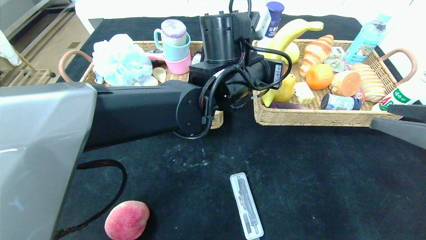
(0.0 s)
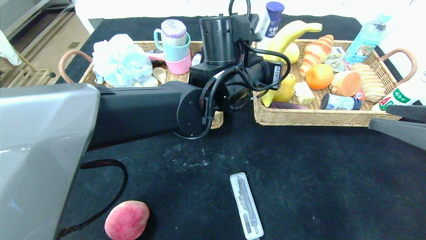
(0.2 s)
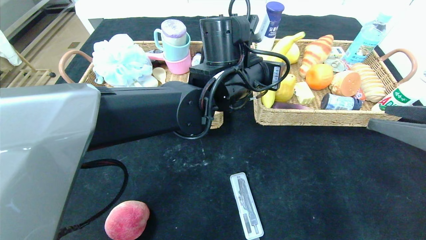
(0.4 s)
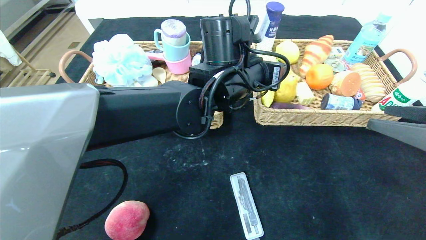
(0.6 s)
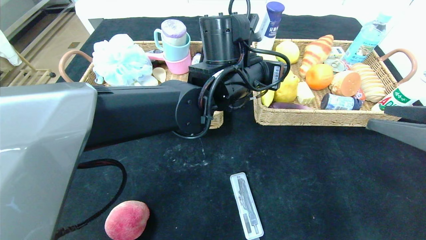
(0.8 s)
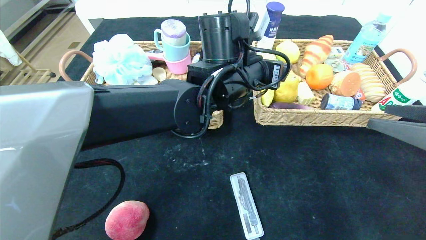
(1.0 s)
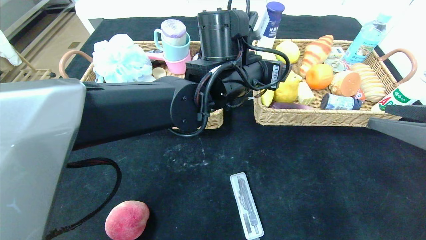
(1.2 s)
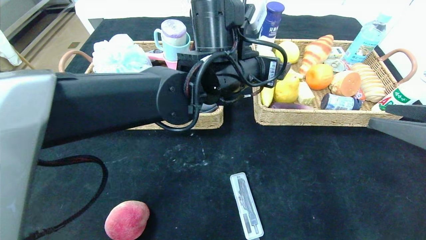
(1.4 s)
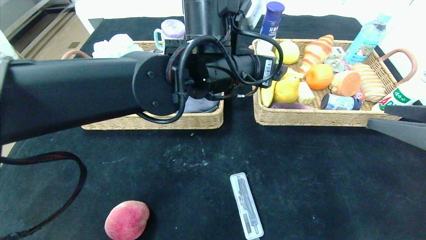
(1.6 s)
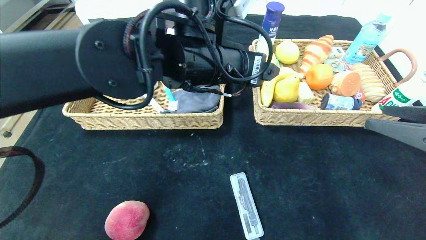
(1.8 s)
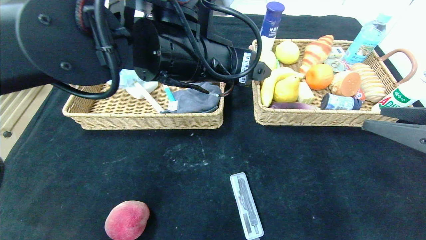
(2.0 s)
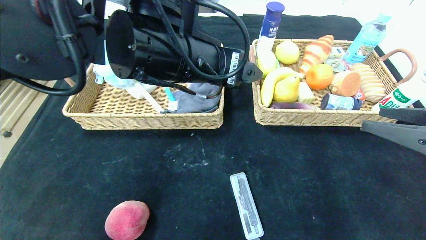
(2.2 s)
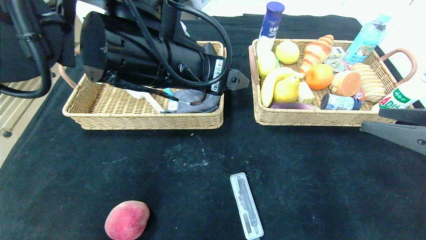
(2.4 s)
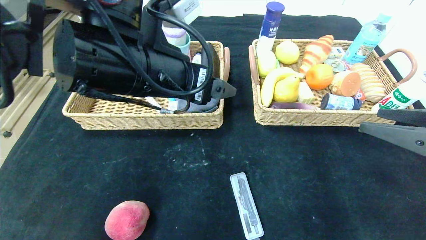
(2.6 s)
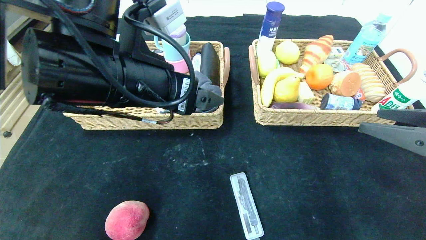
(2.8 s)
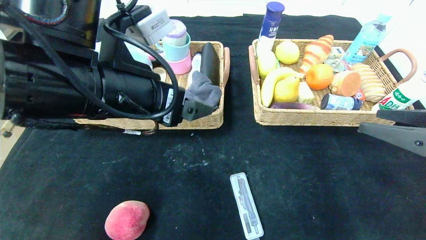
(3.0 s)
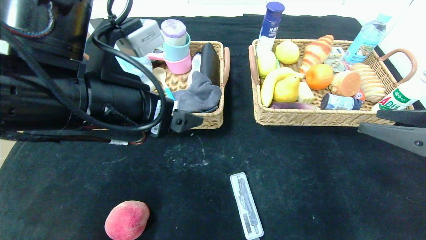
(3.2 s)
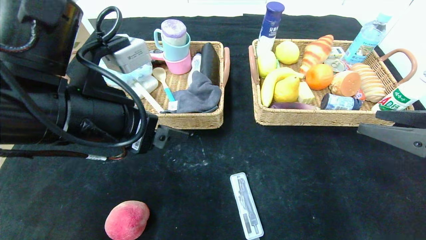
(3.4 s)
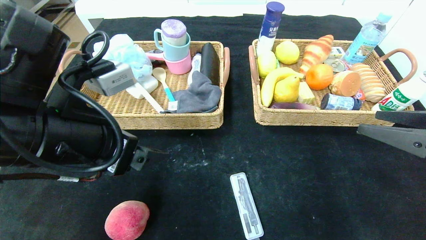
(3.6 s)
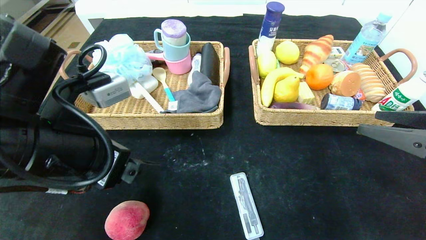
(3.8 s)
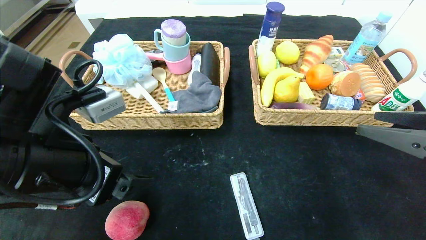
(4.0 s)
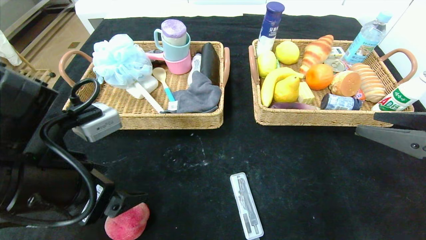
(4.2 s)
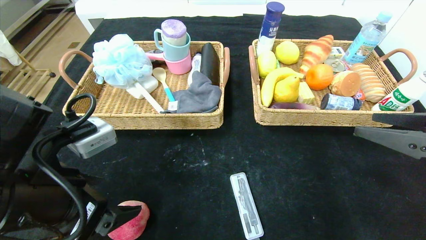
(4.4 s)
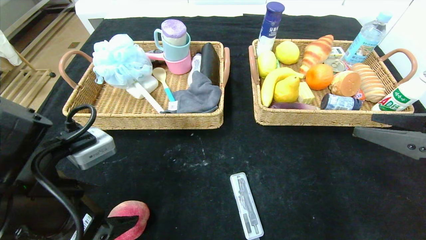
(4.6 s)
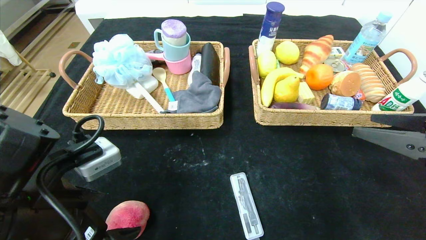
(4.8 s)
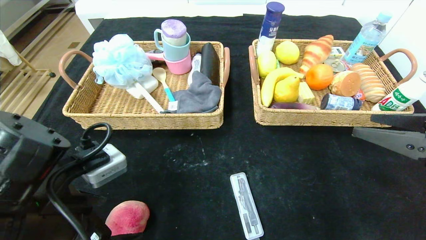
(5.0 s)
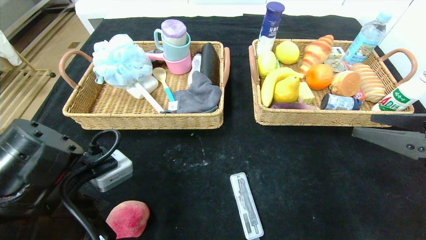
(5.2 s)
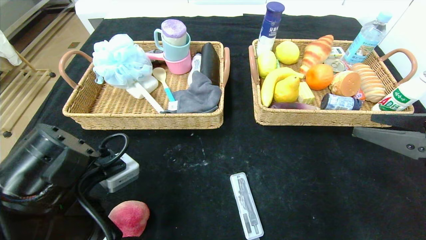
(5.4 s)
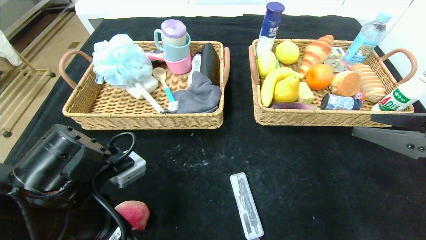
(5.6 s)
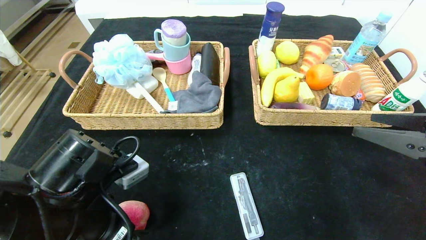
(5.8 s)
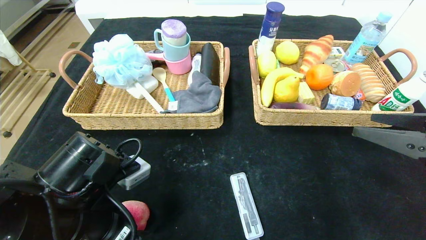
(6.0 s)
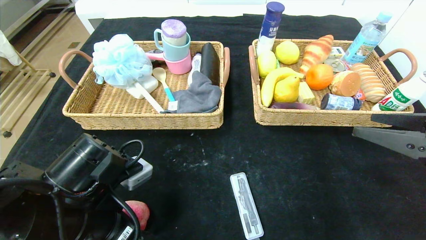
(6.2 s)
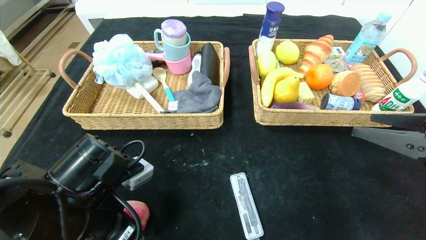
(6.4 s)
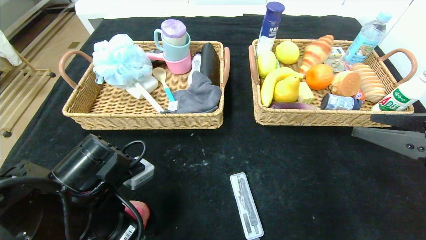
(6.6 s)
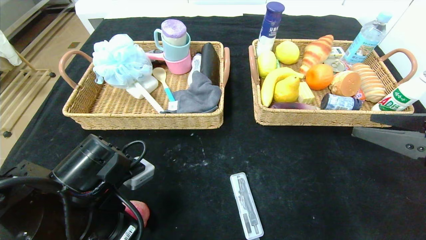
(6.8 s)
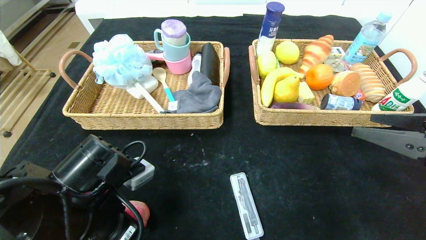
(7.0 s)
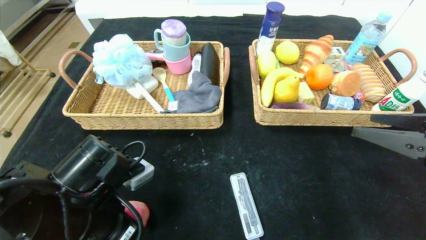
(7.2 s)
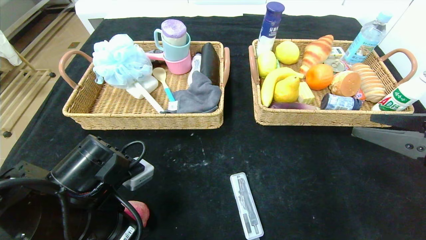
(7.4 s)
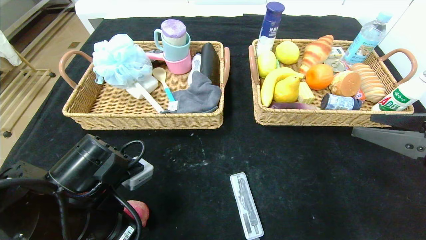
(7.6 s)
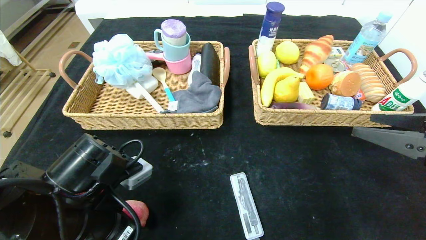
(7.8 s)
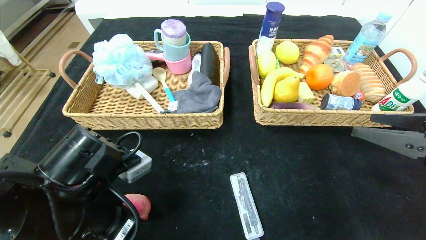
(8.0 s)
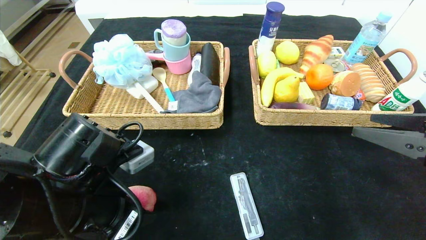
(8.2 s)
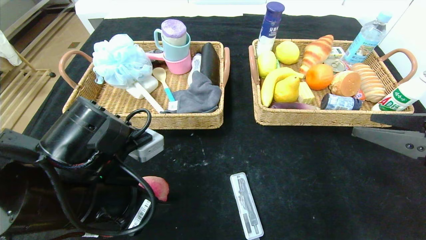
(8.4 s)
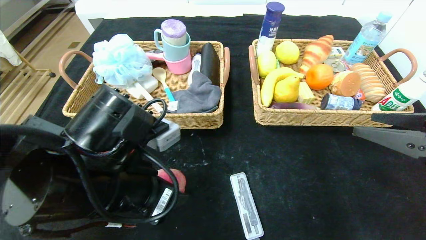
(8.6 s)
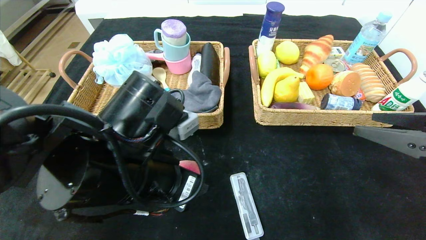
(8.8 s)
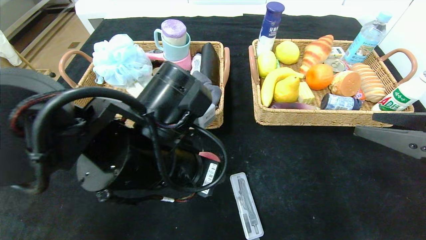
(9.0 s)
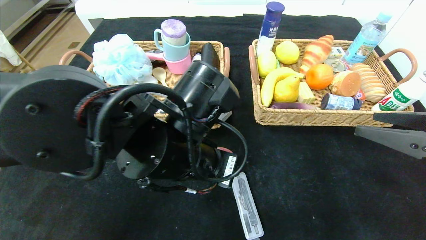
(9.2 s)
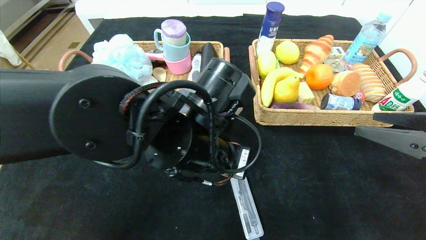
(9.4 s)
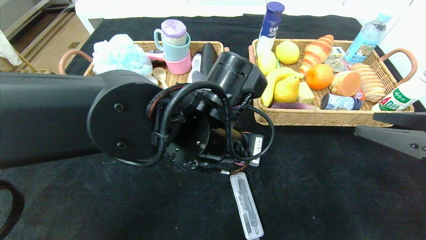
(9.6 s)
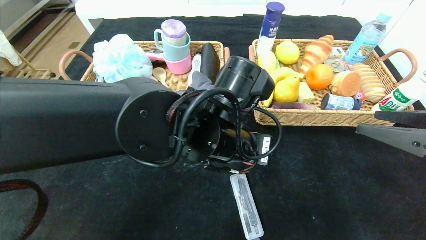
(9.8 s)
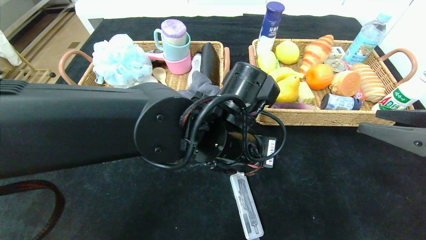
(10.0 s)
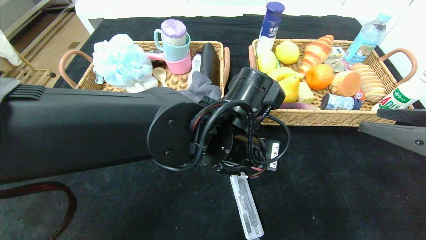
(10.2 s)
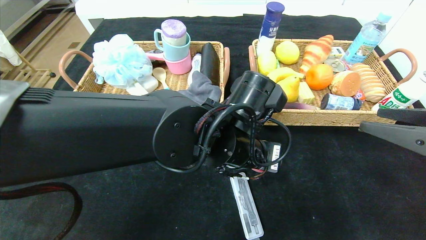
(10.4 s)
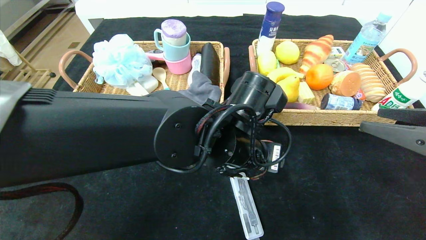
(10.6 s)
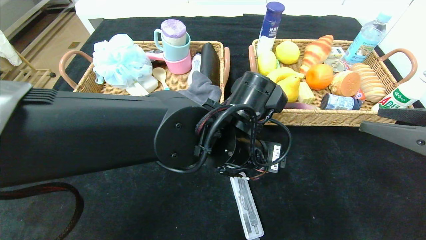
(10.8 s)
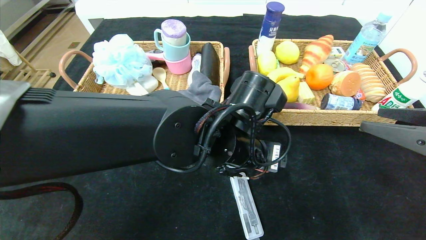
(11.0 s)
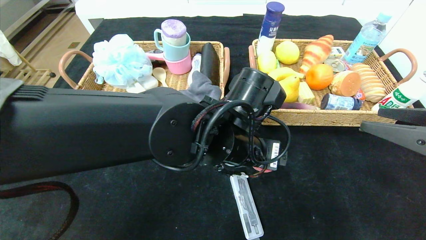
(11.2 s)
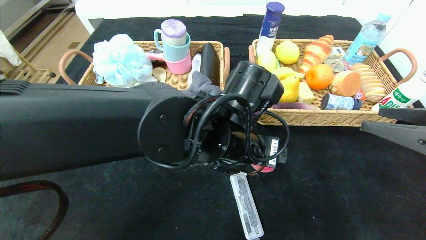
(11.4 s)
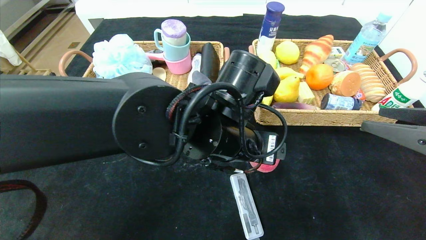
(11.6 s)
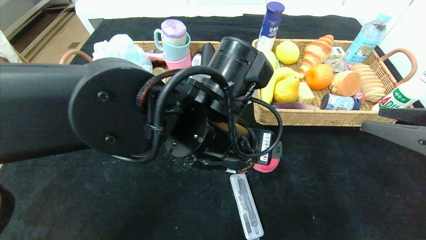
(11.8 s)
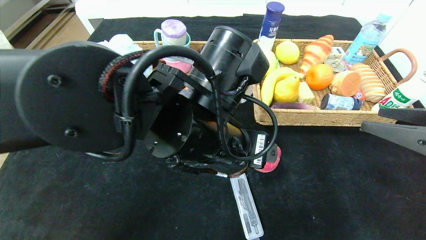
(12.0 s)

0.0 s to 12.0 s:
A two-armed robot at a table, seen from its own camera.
Step, 0.8 to 11.4 s: Place the peach in the center of the table.
0.0 to 1.6 s: The left gripper opens.
1.6 to 3.0 s: The left gripper heads to the left and backward, covering approximately 15 cm.
3.0 to 4.4 s: The left gripper is displaced downward, to the left and backward by about 15 cm.
4.4 to 6.0 s: The left gripper heads downward, covering some 5 cm.
6.0 to 7.6 s: The left gripper closes its fingers.
7.6 to 9.0 s: The left gripper goes roughly 15 cm to the right and upward.
9.0 to 10.4 s: The left gripper travels to the right by roughly 10 cm.
10.4 to 12.0 s: The left gripper moves approximately 5 cm.

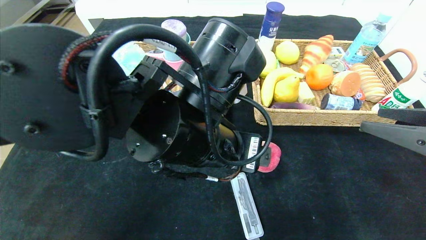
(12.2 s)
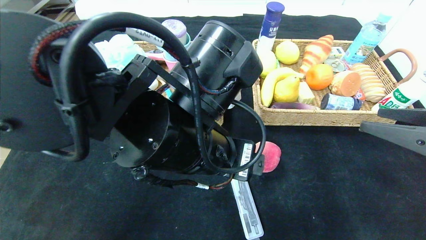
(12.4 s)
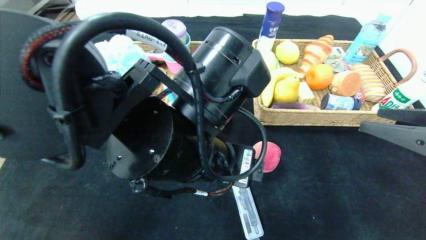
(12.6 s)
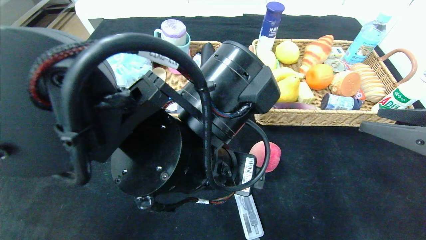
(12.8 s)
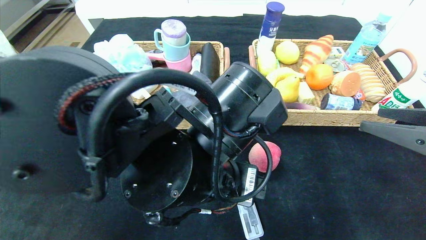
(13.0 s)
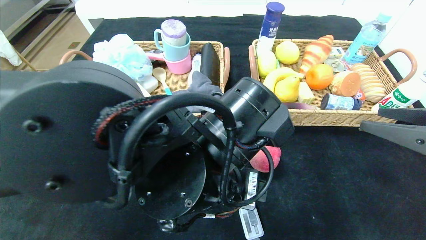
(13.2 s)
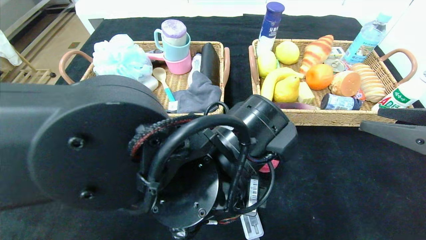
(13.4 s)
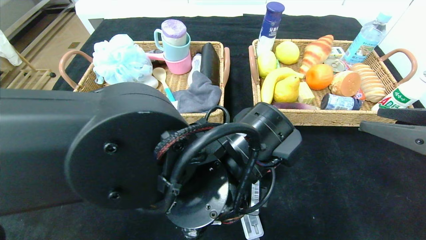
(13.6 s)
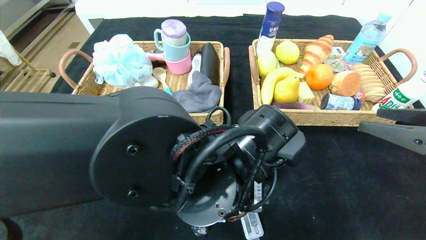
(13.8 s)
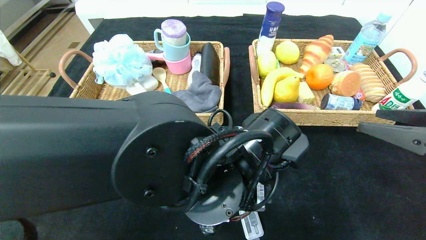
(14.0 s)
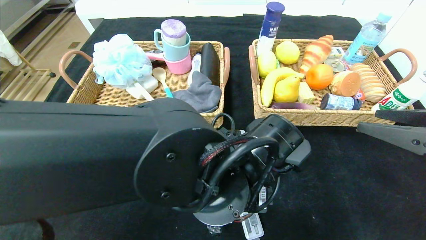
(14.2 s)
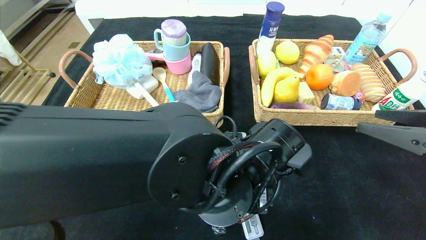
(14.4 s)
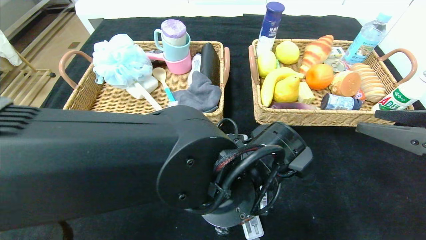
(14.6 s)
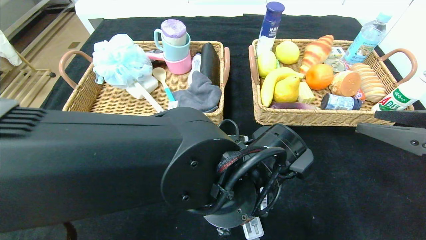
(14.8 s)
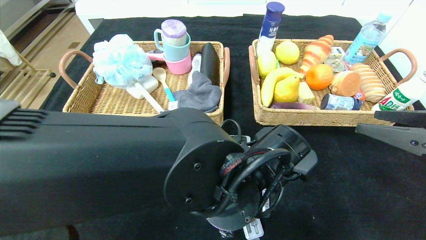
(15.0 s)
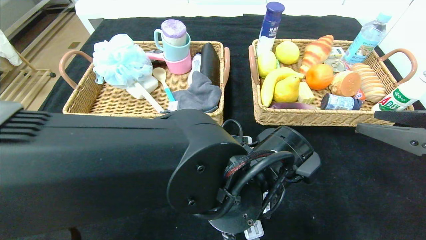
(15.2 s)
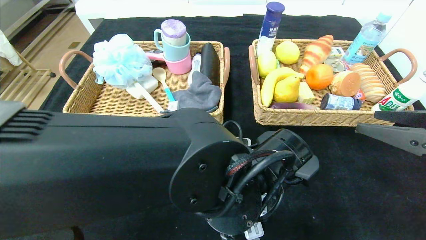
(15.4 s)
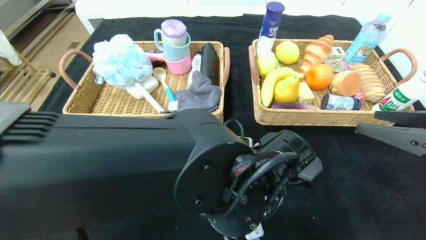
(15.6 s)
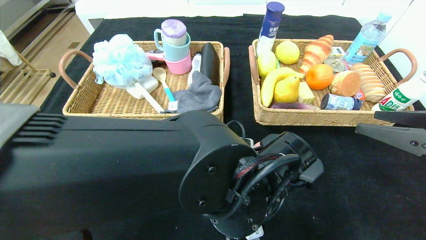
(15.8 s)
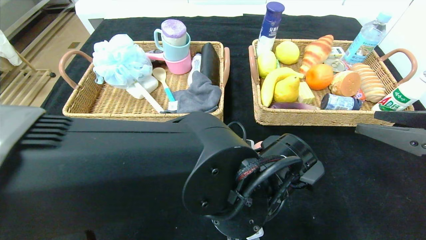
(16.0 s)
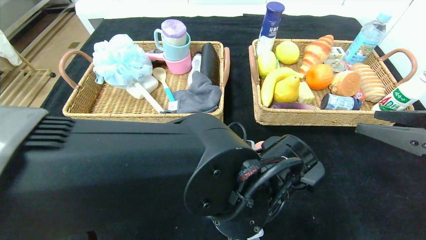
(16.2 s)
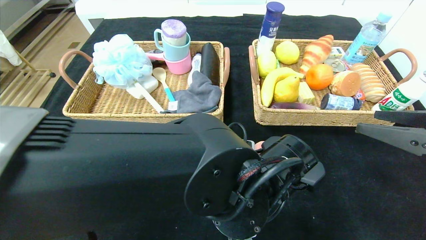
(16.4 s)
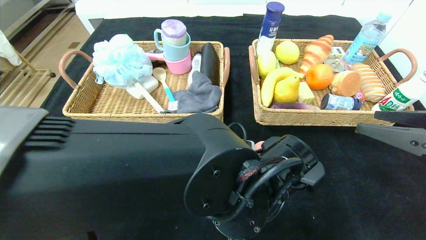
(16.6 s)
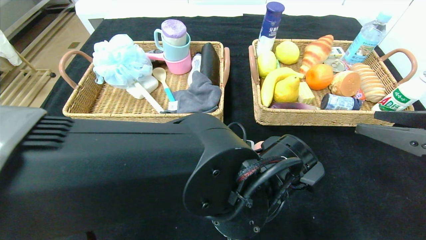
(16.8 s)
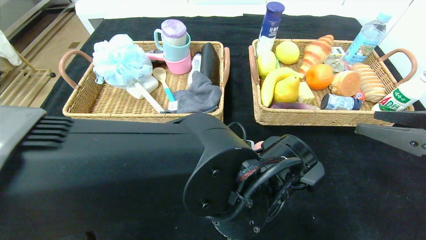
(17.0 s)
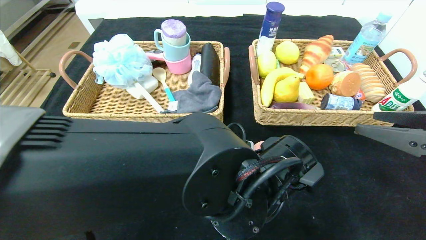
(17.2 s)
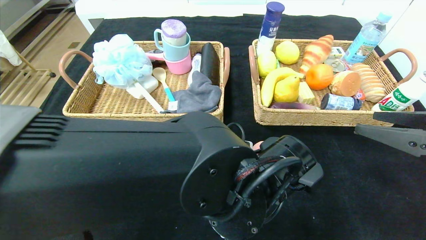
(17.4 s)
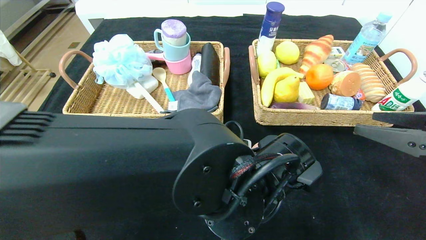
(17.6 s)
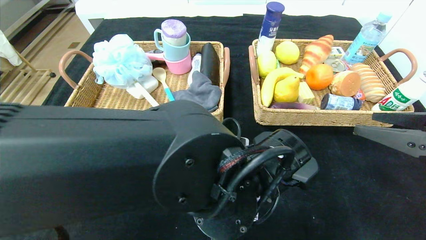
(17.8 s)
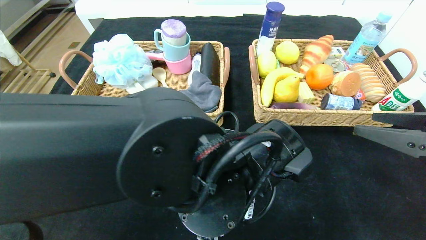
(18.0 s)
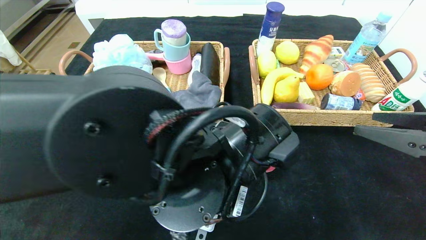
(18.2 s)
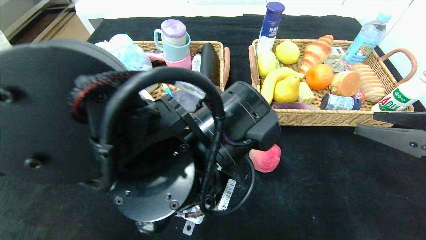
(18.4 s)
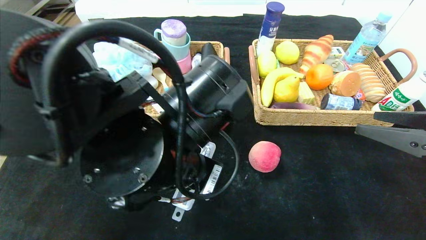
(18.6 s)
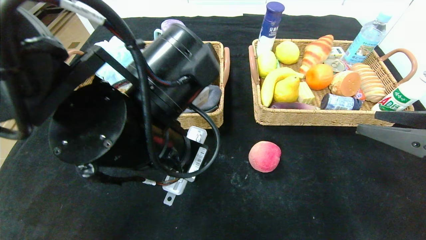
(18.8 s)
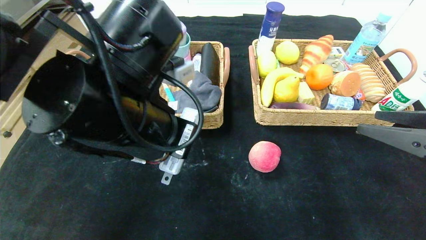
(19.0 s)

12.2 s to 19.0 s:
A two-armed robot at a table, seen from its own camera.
12.2 to 13.6 s: The left gripper heads downward, covering about 5 cm.
15.0 to 16.2 s: The grippers move only a little.
16.2 to 17.6 s: The left gripper closes its fingers.
17.6 to 19.0 s: The left gripper shifts roughly 15 cm to the left and upward.
